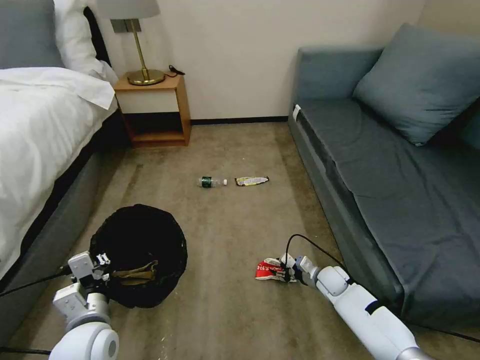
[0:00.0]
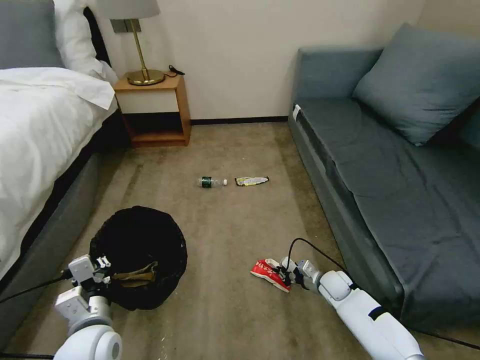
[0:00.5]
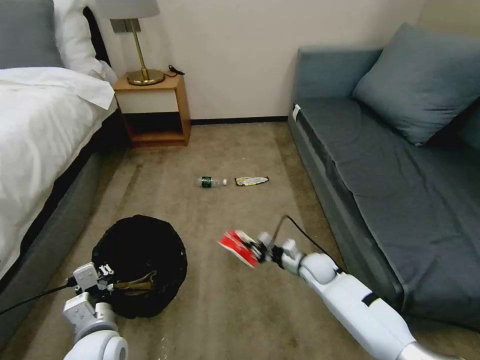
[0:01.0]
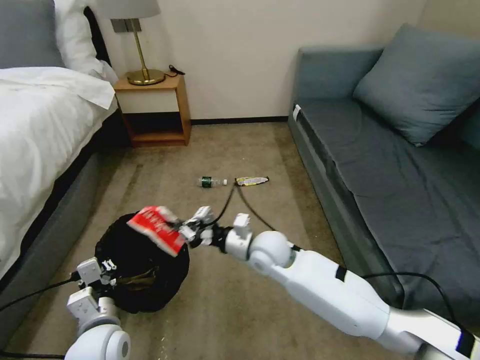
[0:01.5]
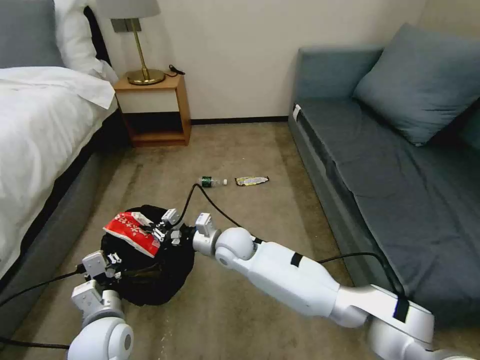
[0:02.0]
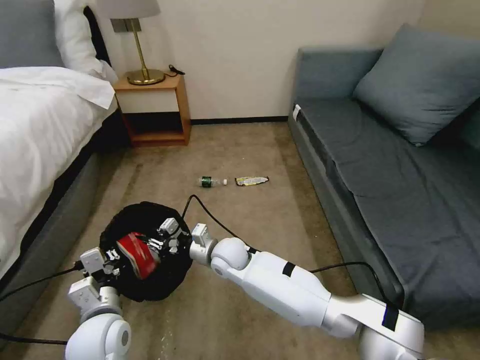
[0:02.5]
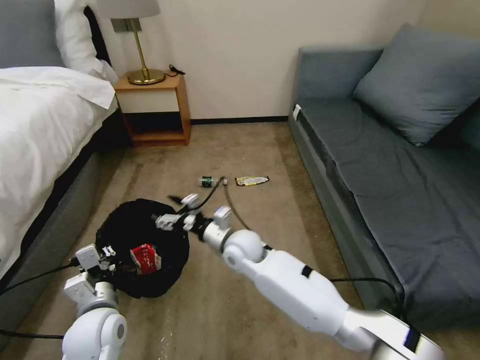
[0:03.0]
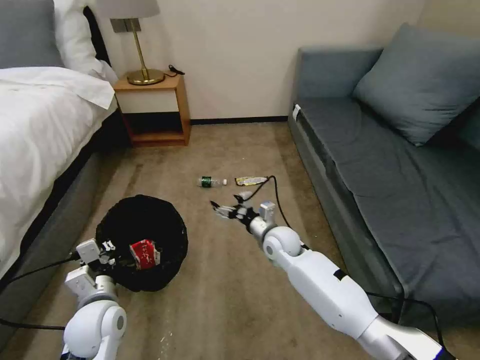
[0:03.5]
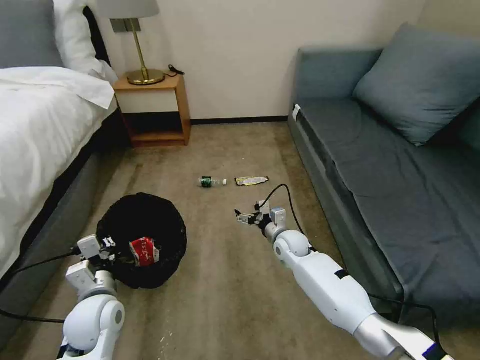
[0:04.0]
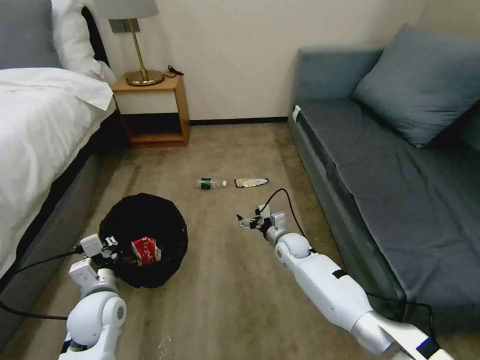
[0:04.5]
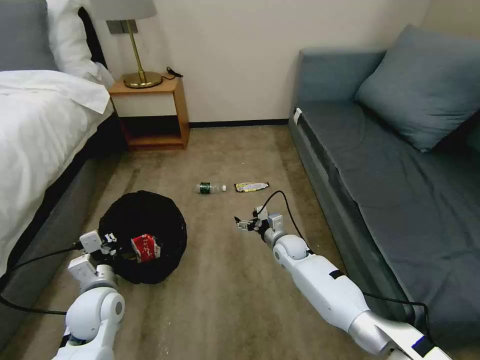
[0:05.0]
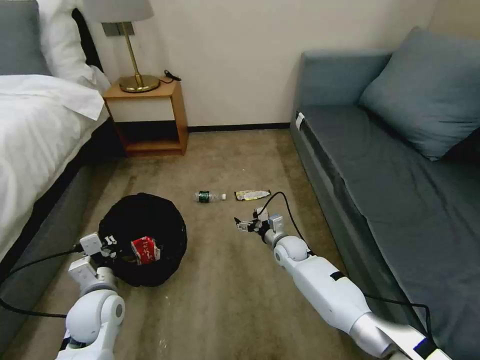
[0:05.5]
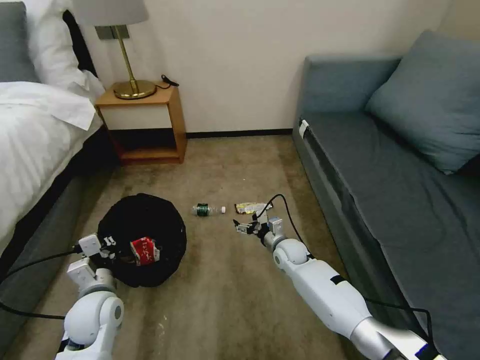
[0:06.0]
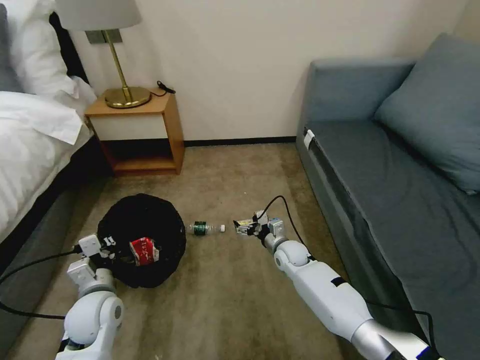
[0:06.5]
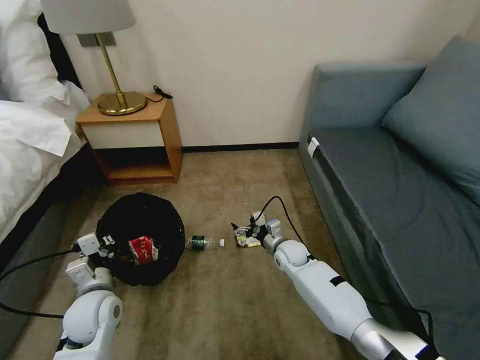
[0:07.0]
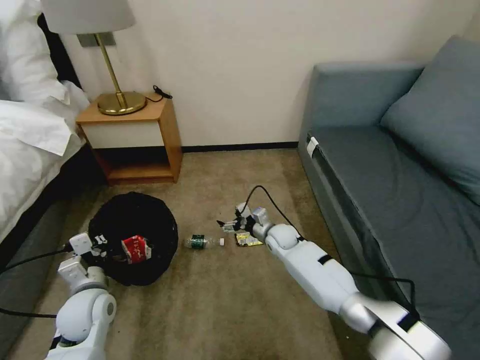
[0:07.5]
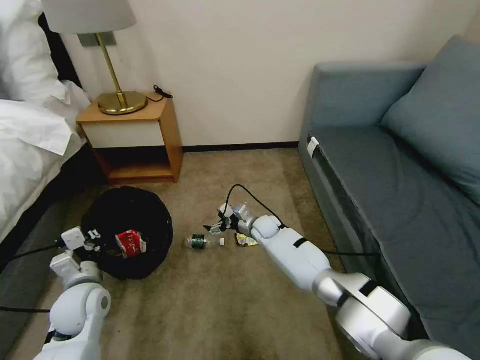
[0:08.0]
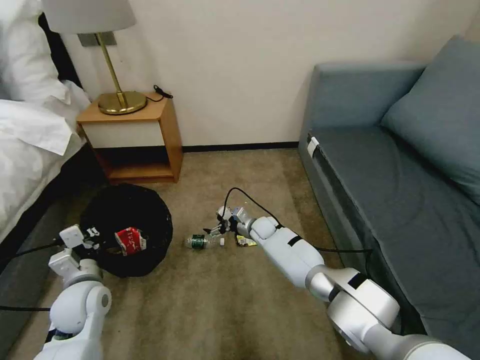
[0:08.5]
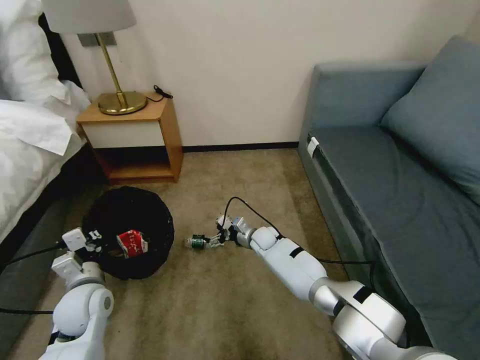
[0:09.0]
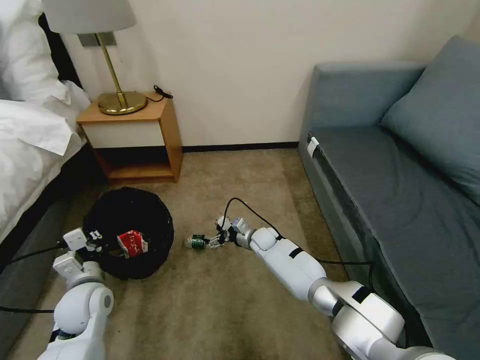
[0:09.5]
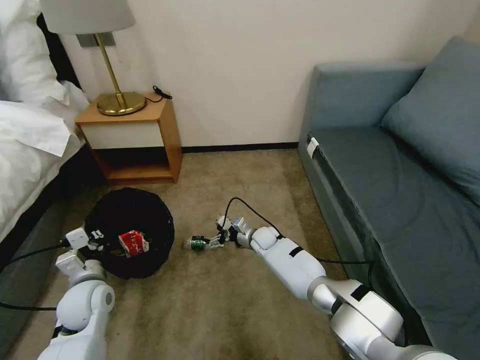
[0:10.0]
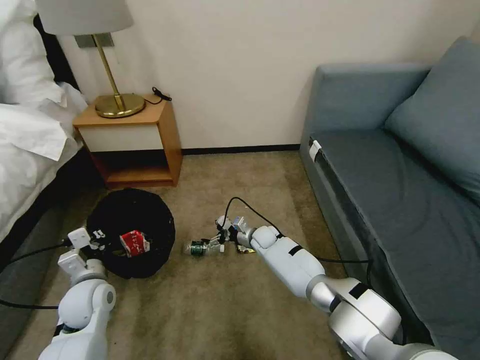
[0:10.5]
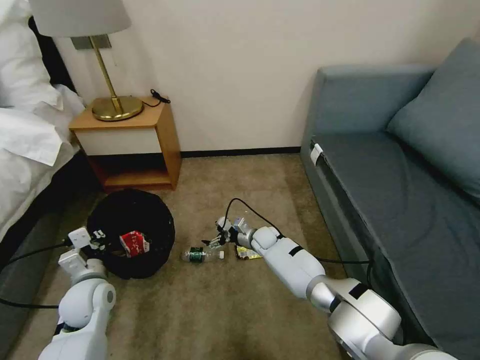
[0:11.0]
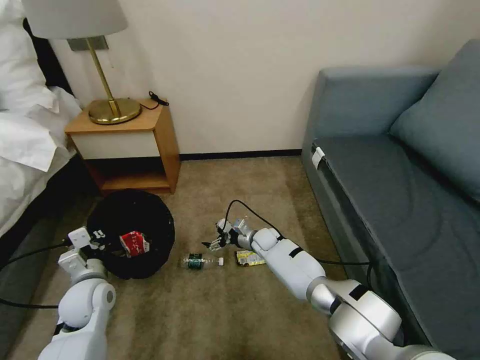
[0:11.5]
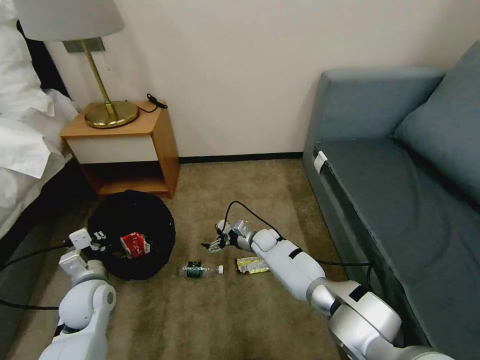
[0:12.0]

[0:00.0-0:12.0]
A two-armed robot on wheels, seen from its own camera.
Task of the whole recording: Pick up the trash bin, then pick up the garbage on the floor and place it into the trash bin.
0:00.0 to 0:02.0: The right gripper shifts approximately 35 cm to the left and upward, and closes.
0:02.0 to 0:04.0: The left gripper shifts by about 5 cm, while the right gripper heads to the right and downward, covering approximately 20 cm, and opens.
0:06.0 to 0:08.0: The right gripper goes some 10 cm forward and to the left.
0:08.0 to 0:10.0: The grippers make only small movements.
0:10.0 to 0:12.0: Both grippers stay put.

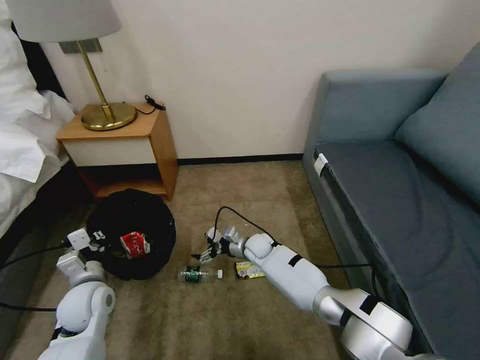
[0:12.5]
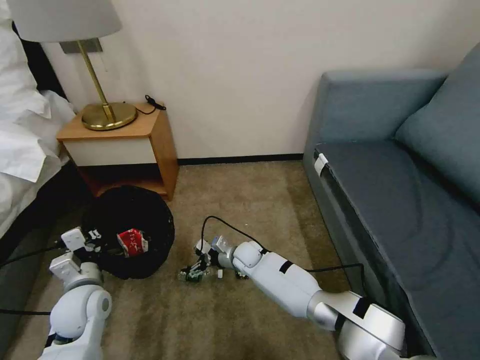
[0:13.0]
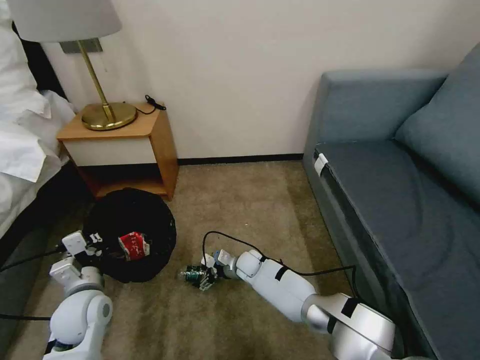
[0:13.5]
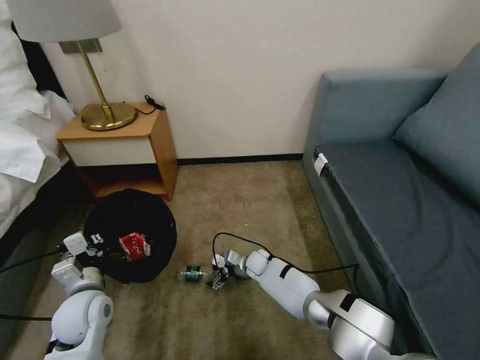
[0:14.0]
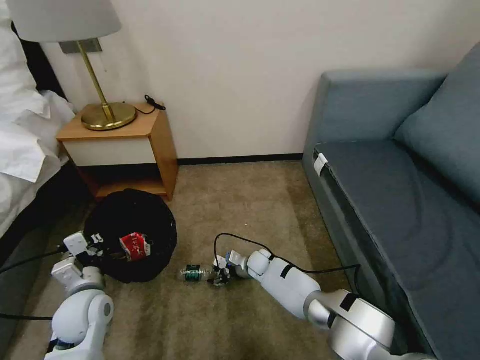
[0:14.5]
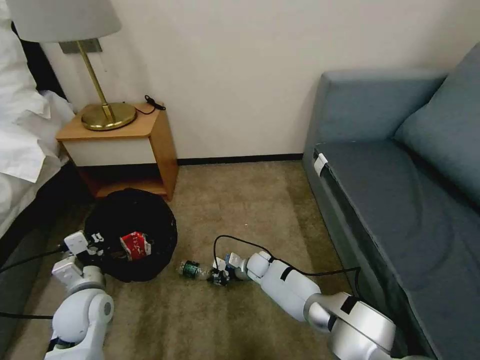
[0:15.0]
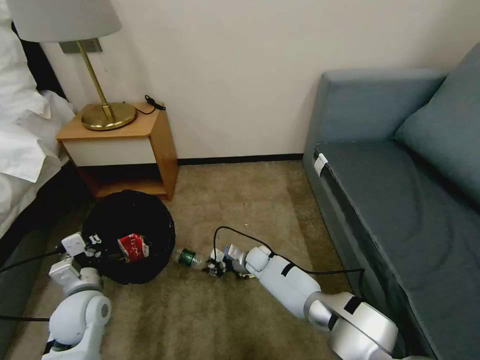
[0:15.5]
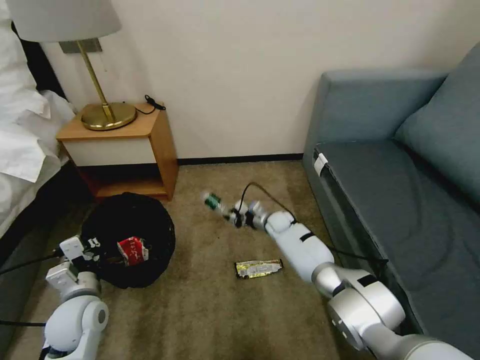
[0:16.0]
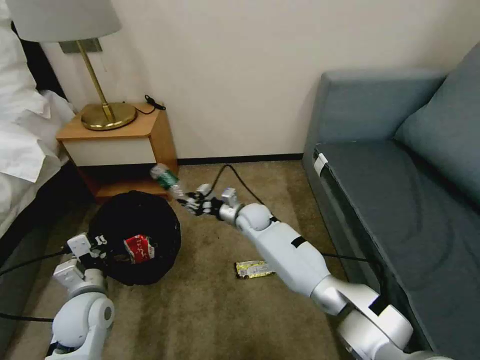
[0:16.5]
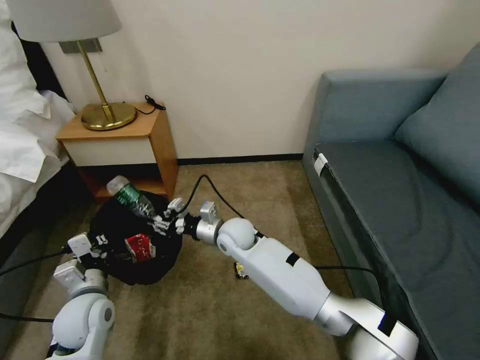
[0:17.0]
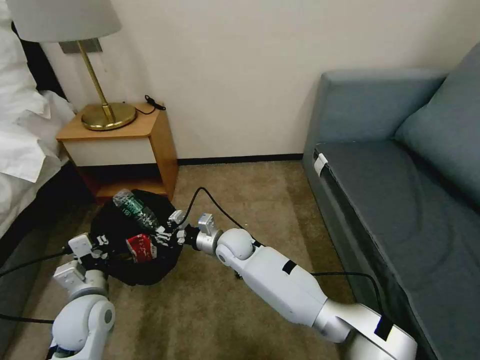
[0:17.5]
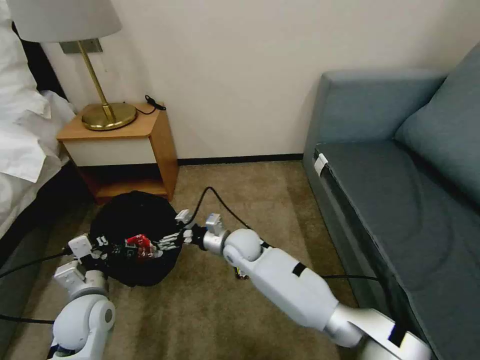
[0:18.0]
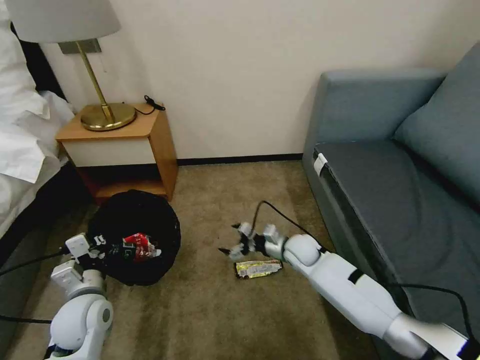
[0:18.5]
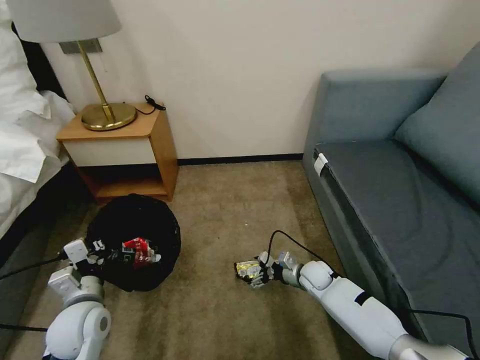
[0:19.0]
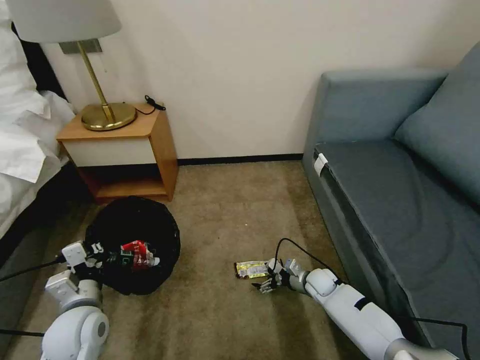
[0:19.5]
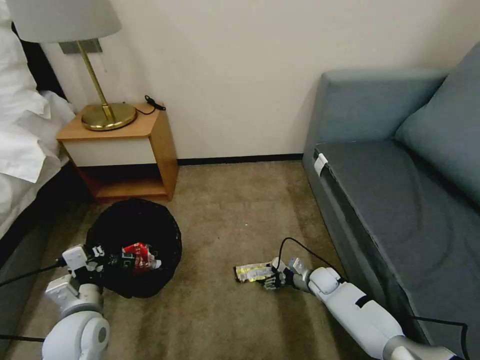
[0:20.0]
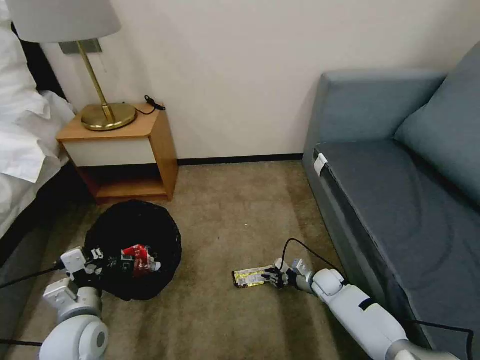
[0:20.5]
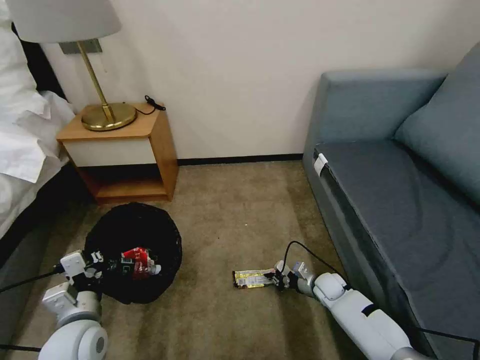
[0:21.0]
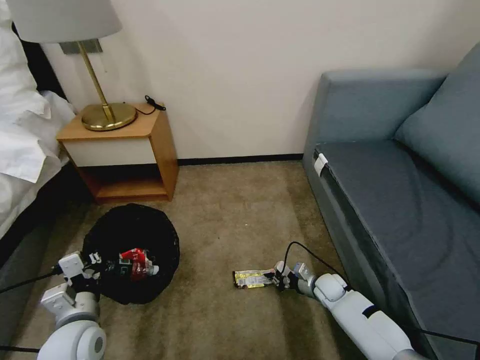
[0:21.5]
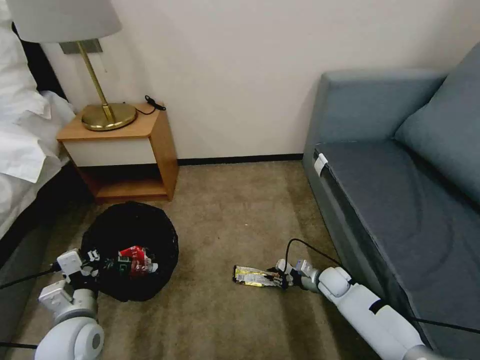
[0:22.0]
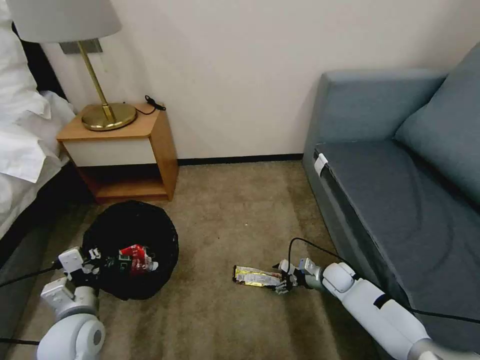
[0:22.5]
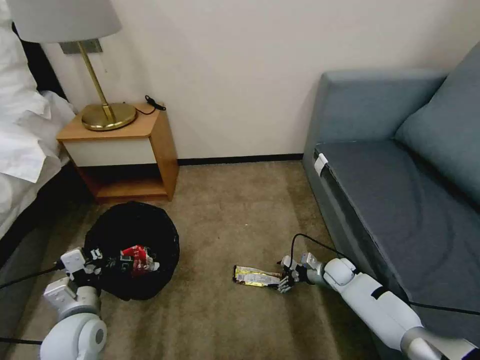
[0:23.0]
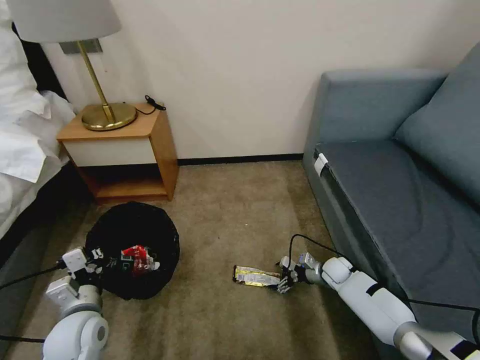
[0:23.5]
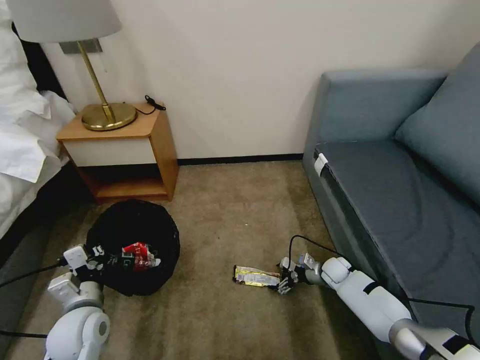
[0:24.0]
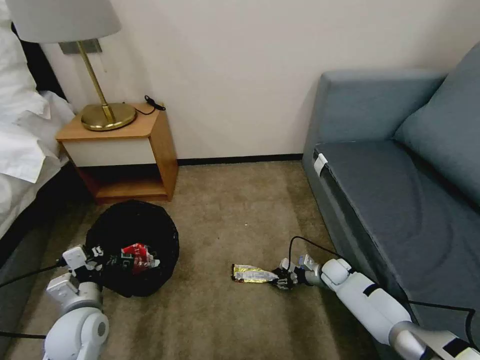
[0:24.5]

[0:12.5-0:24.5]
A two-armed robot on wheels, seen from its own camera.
Task of the whole recording: Pick up the trash bin, then pick up the garbage on the floor and place it into the trash bin.
0:12.5 to 0:14.5: The right gripper goes about 5 cm downward, and closes up.
0:14.5 to 0:16.5: The right gripper heads upward, covering roughly 20 cm.
0:16.5 to 0:18.5: The right gripper goes roughly 15 cm to the right, backward and downward, and opens.
0:18.5 to 0:20.5: The right gripper goes approximately 15 cm downward and to the right, and closes its fingers.
0:20.5 to 0:22.5: The right gripper opens.
0:22.5 to 0:24.5: The grippers stay close to where they were, moving slightly.

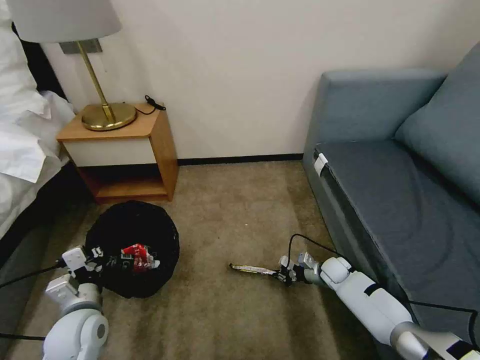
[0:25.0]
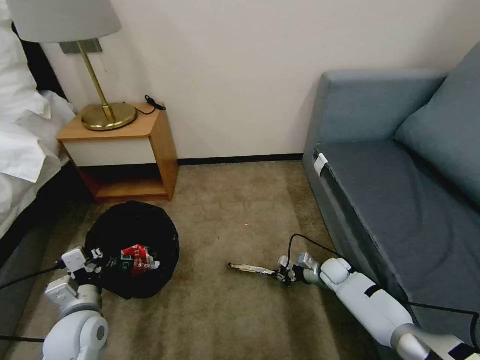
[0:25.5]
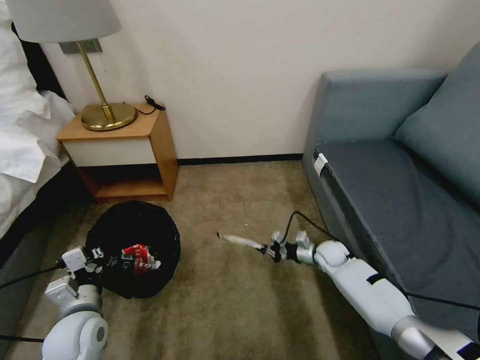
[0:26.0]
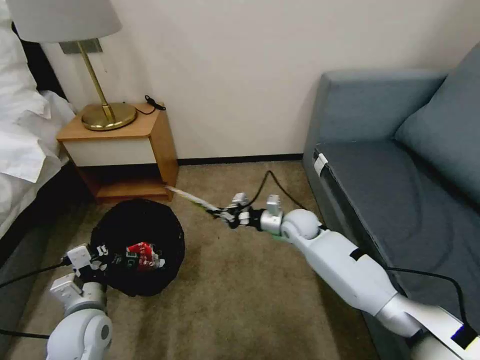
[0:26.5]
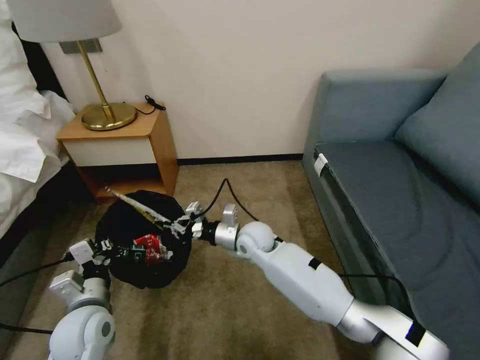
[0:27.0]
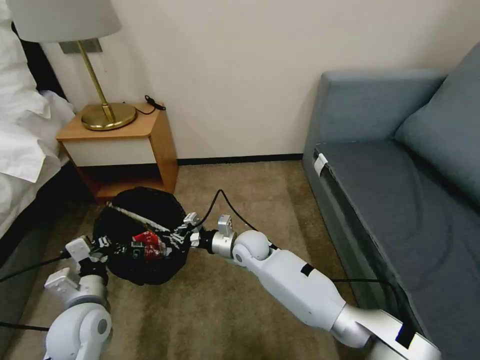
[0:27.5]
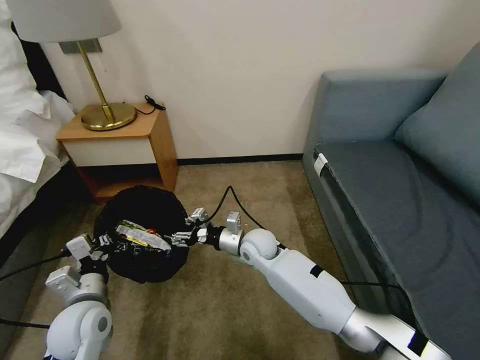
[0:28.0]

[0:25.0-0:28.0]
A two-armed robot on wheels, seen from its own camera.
Task of the whole recording: Pick up the trash bin, then pick up the garbage on the floor and place it into the trash bin.
0:25.0 to 0:26.5: The right gripper shifts approximately 25 cm upward and to the left.
0:26.5 to 0:28.0: The right gripper heads to the left and backward, covering approximately 10 cm, and opens its fingers.
